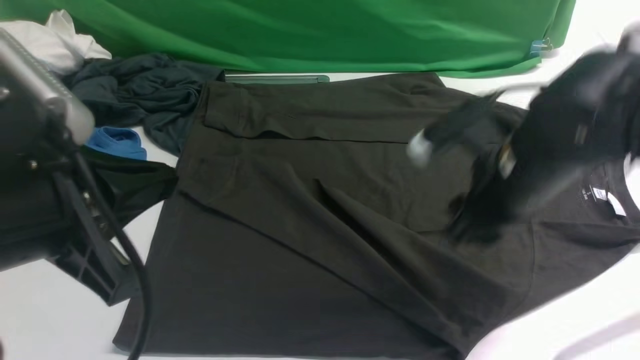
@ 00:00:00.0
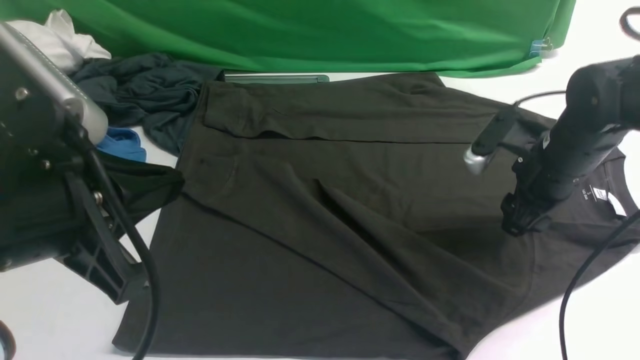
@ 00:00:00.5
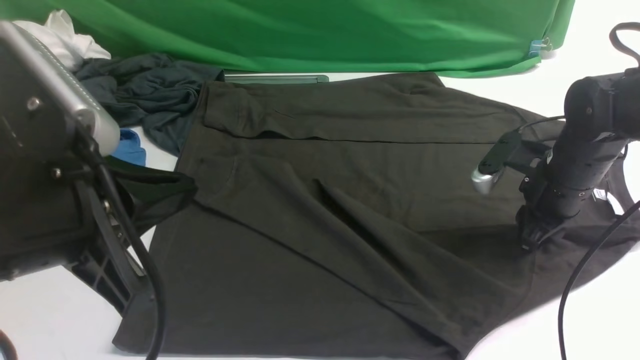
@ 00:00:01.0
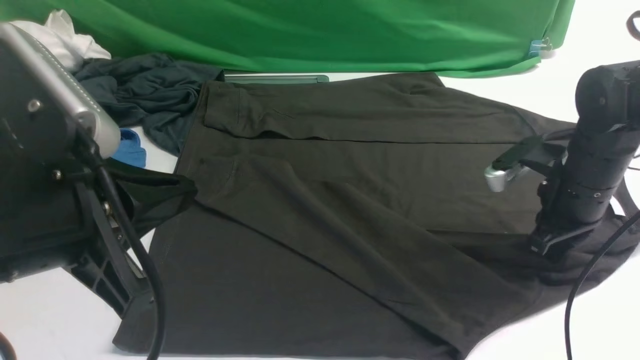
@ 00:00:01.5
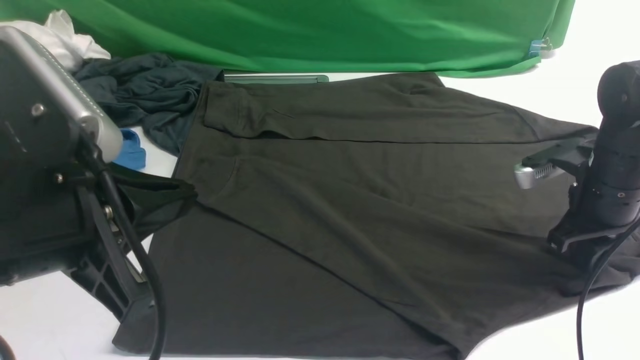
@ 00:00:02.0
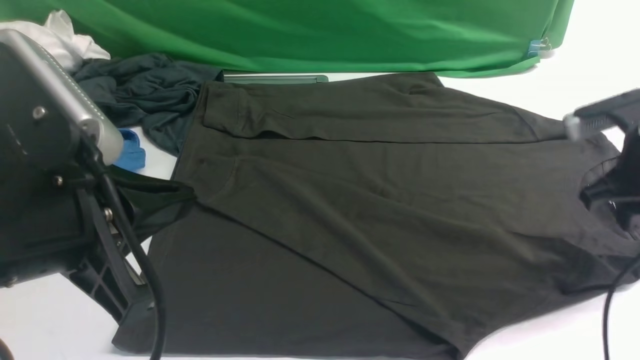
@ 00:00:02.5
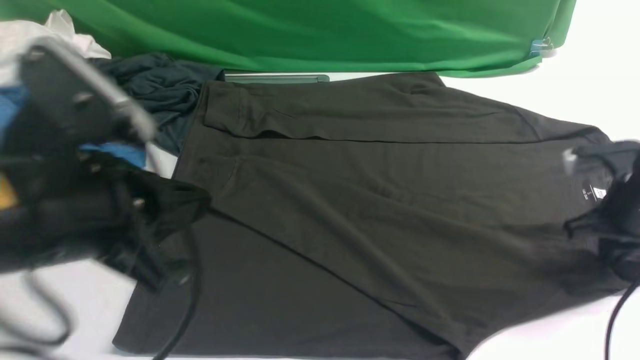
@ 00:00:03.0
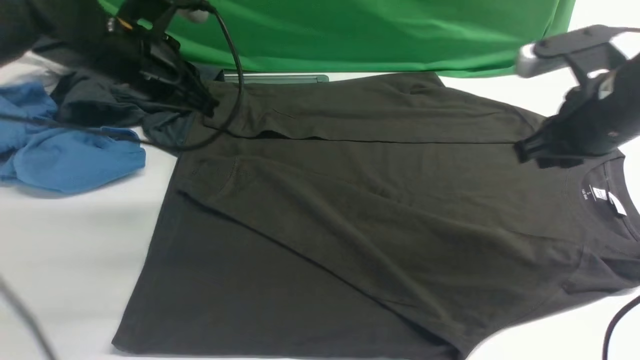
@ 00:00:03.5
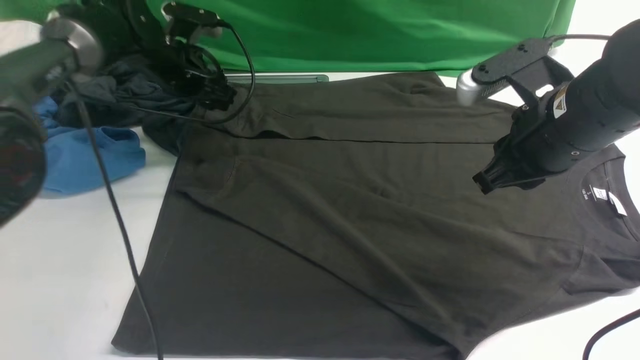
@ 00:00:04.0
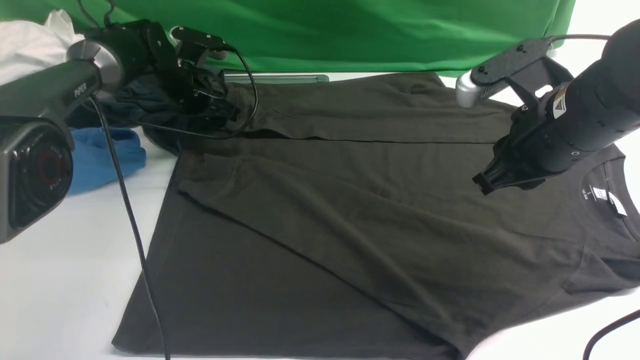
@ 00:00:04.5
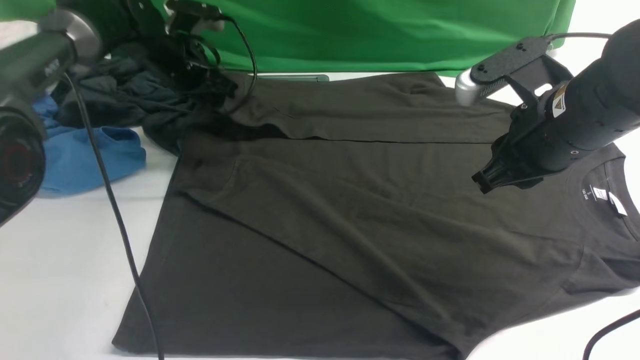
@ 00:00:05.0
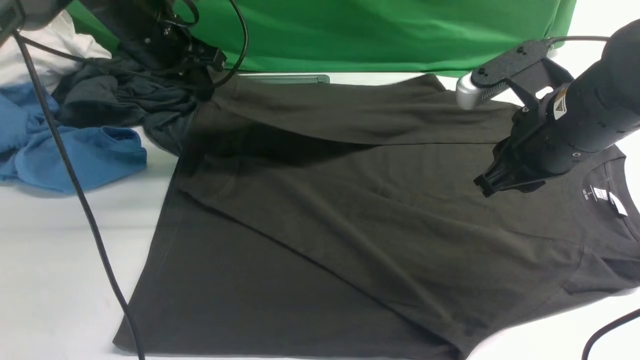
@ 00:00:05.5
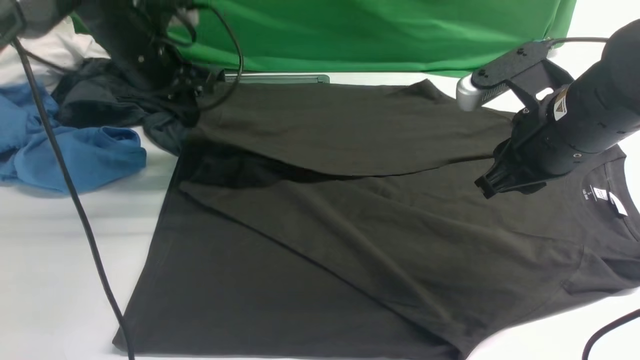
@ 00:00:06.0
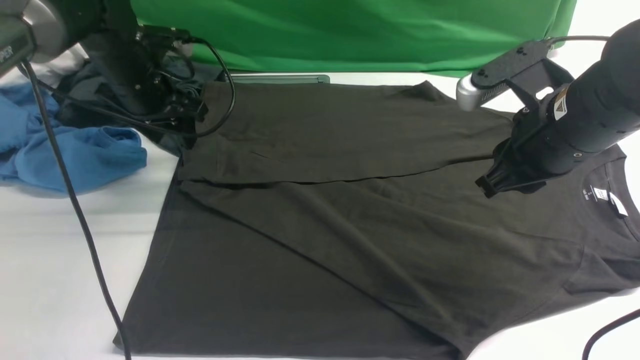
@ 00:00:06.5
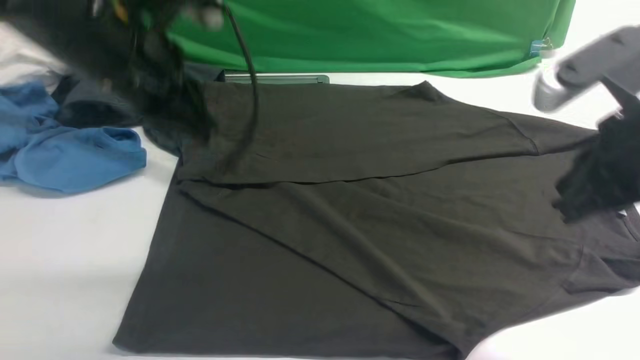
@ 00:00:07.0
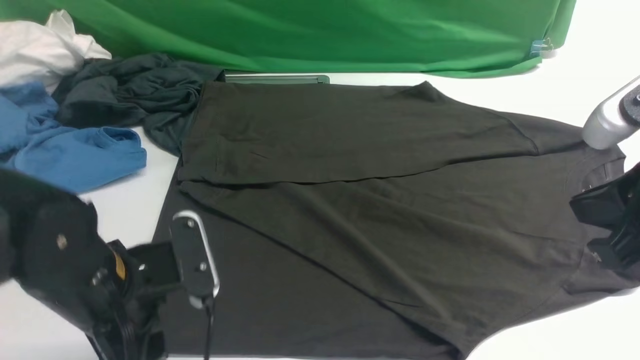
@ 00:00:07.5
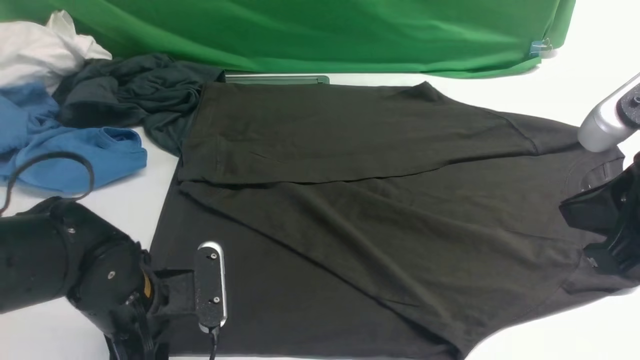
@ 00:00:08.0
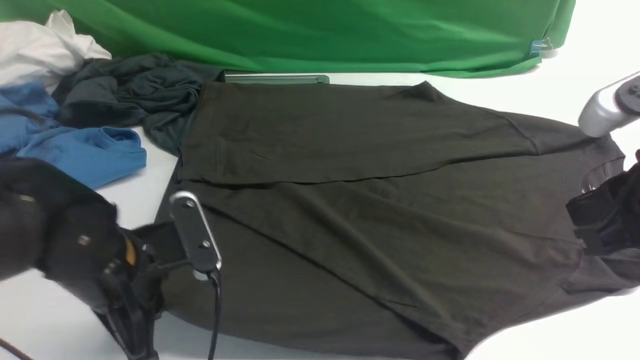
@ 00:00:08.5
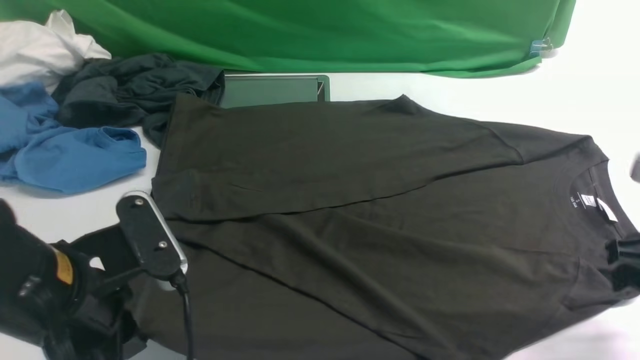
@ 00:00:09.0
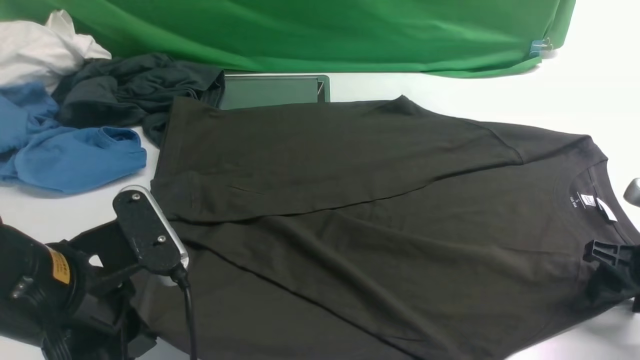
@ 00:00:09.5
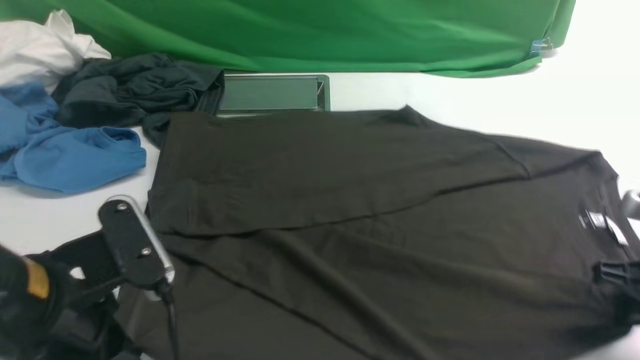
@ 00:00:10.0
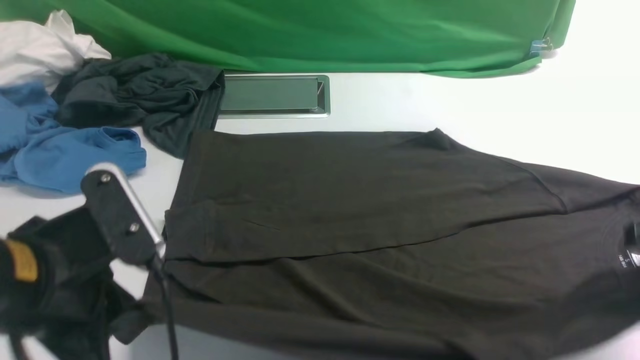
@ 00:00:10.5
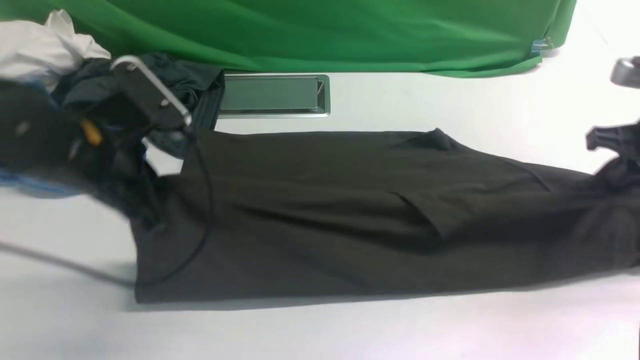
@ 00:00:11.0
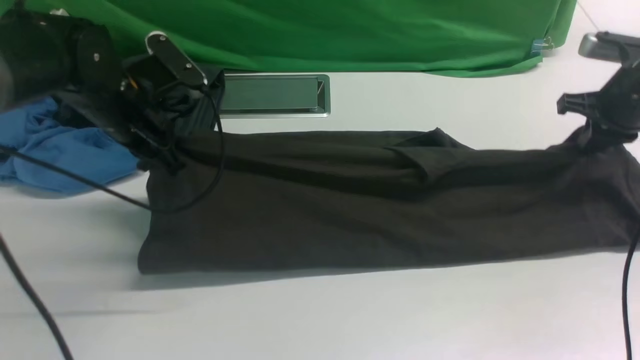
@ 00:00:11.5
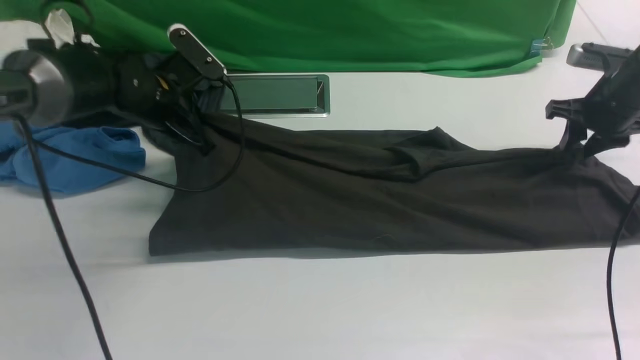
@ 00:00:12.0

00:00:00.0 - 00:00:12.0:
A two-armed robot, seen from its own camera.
Step, 00:00:00.0 - 00:00:05.0: use the left arm to clamp the cuff farthest from it.
Step, 00:00:05.5 - 00:00:06.5: use the left arm to drag and drop the cuff onto the cuff closest to the left arm.
Step, 00:00:07.0 - 00:00:10.0: use both arms simultaneously to clamp the lower edge of the clothing fabric.
00:00:00.0 - 00:00:02.0: The right gripper is displaced to the right and downward by some 15 cm, and closes.
00:00:02.0 - 00:00:04.0: The right gripper moves upward and to the left, about 15 cm; the left gripper is displaced forward and downward by approximately 40 cm, and opens up.
00:00:04.0 - 00:00:06.0: The left gripper is displaced upward and backward by about 10 cm, and closes.
00:00:06.0 - 00:00:08.0: The right gripper travels backward and upward by approximately 15 cm; the left gripper travels backward and downward by approximately 25 cm, and opens up.
00:00:08.0 - 00:00:10.0: The left gripper moves upward and backward, about 15 cm, and closes its fingers. The right gripper goes roughly 20 cm downward and to the right, and opens, then closes once more.
00:00:10.0 - 00:00:12.0: The grippers both shift forward by approximately 25 cm. The right gripper opens.

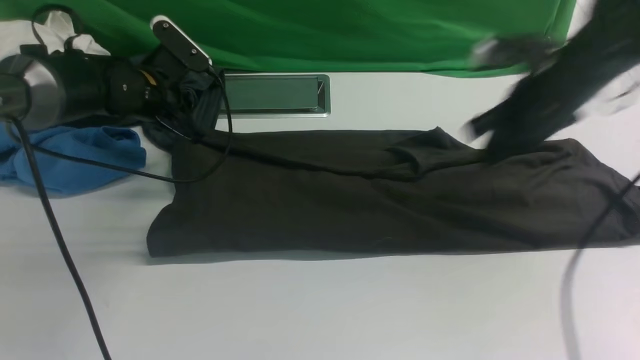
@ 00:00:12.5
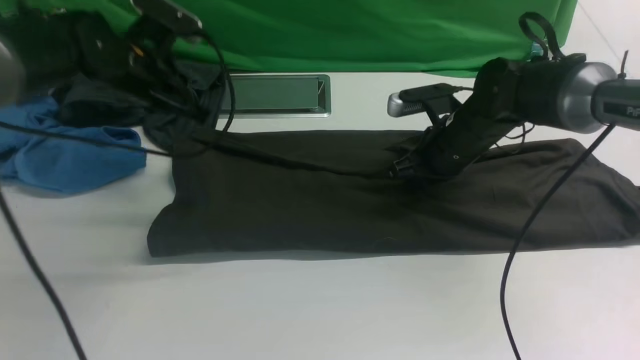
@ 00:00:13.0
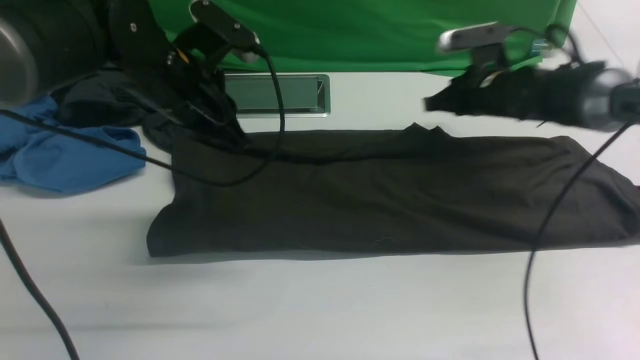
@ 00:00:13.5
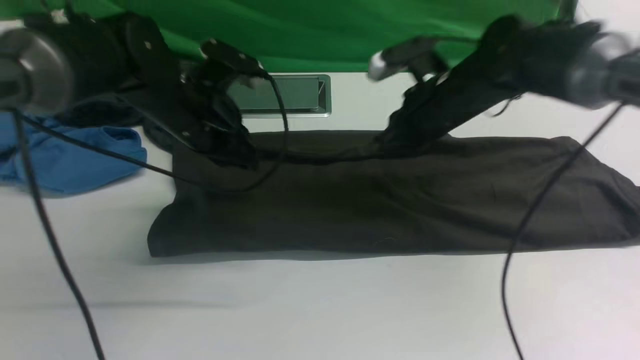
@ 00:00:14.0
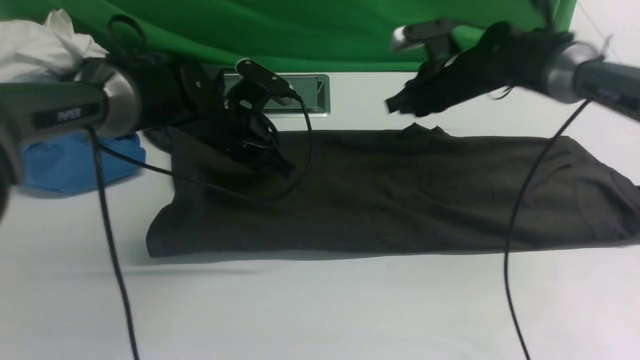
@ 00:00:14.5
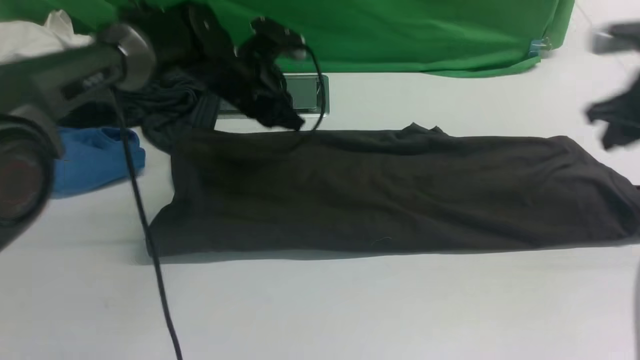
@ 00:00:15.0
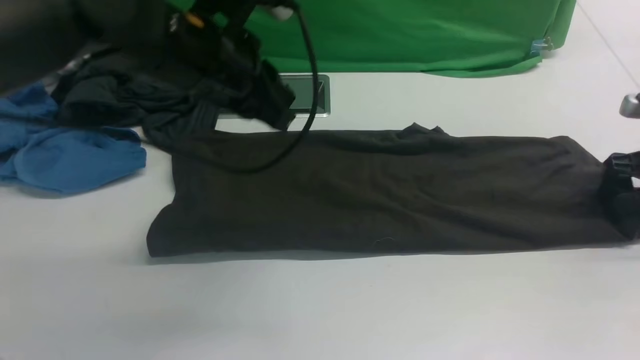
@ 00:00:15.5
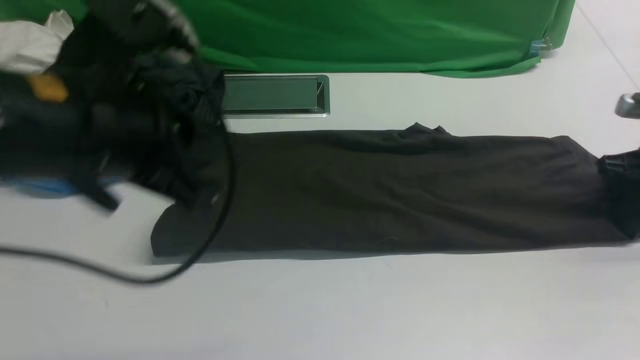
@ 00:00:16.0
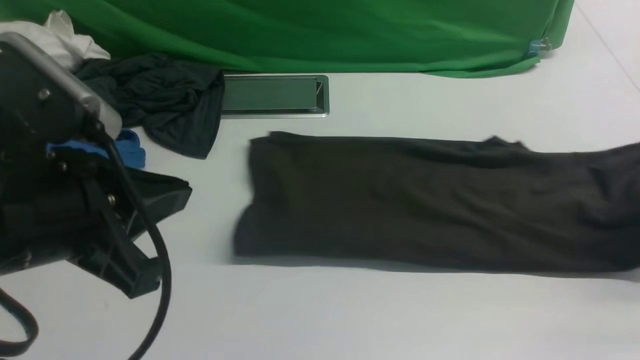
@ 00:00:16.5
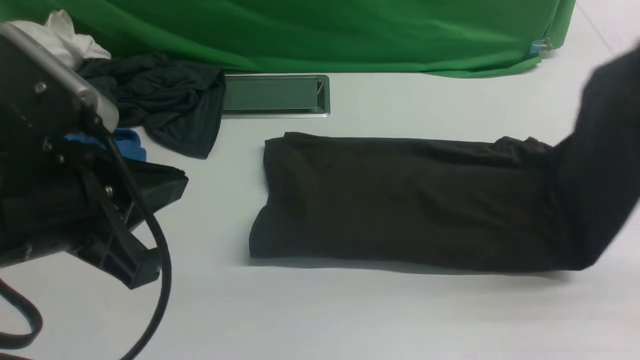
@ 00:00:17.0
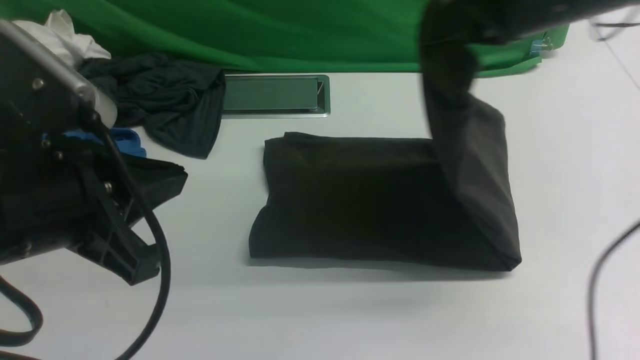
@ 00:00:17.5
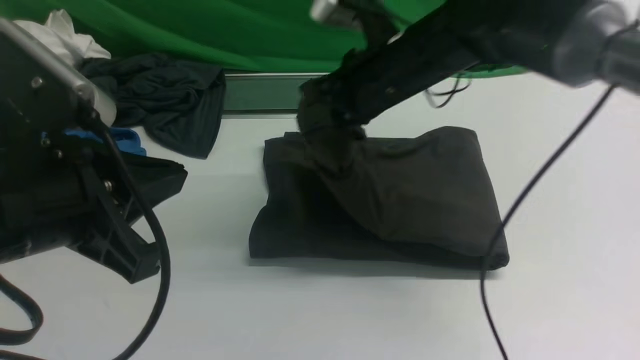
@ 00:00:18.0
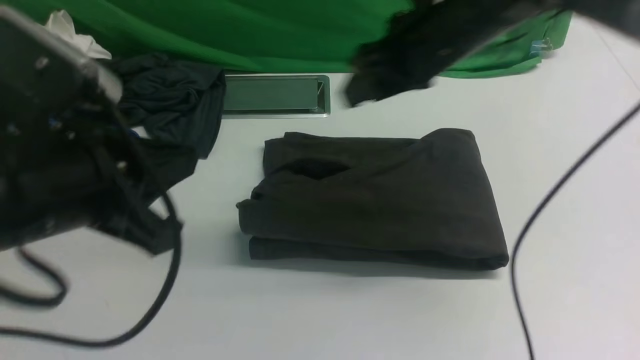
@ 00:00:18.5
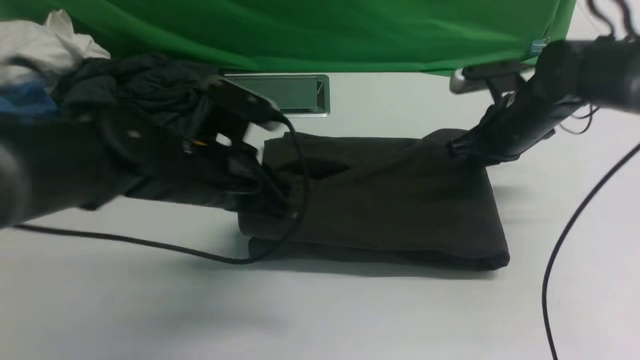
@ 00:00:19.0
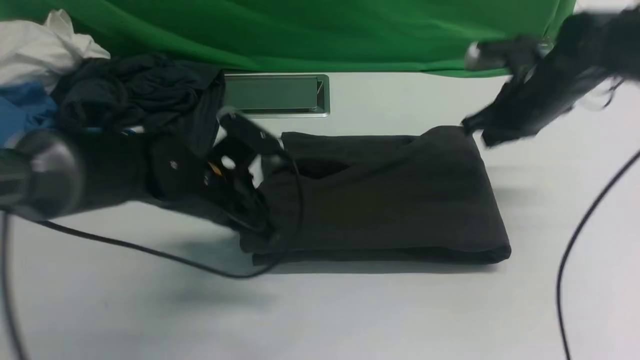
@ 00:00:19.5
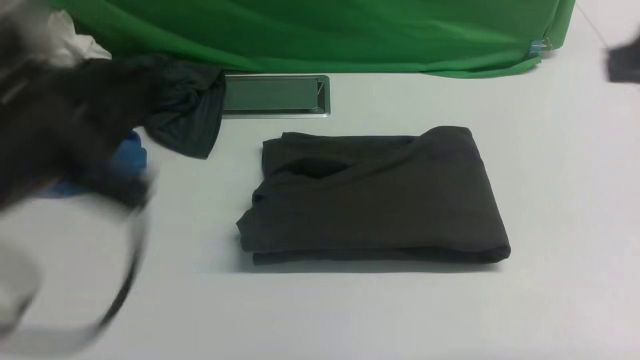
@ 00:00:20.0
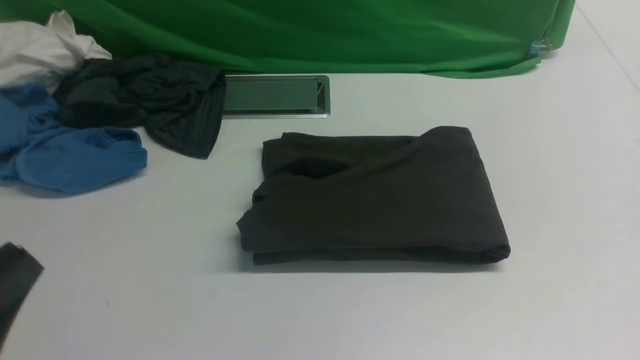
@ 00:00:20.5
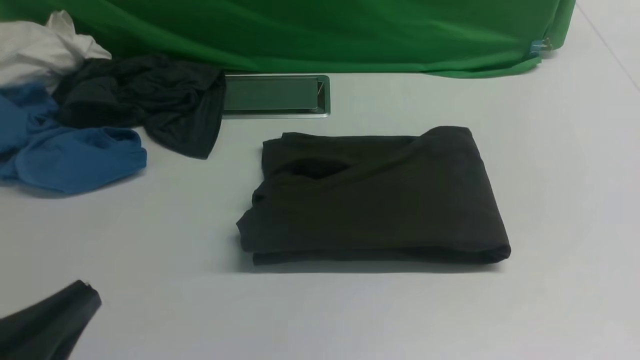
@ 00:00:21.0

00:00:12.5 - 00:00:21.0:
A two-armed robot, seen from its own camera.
Step, 00:00:12.5 - 00:00:14.5: use both arms to drag the lower edge of the fabric forward and fold it over the upper edge.
Step, 00:00:15.0 - 00:00:16.0: use the right arm to clamp the right edge of the fabric.
Step, 00:00:16.5 - 00:00:18.0: use the right arm to drag the right edge of the fabric to the left and folds it over the left edge.
00:00:12.5 - 00:00:14.5: The left gripper heads to the right, covering some 10 cm, and goes upward and returns, roughly 10 cm each way; the right gripper travels forward by approximately 10 cm.
00:00:14.5 - 00:00:16.5: The right gripper moves to the right and backward, some 30 cm, and opens and closes again. Meanwhile the left gripper is displaced backward and upward by roughly 35 cm.
00:00:16.5 - 00:00:19.0: The right gripper goes about 25 cm to the left and forward, and opens, then closes once more. Meanwhile the left gripper shifts some 20 cm forward and downward.
00:00:19.0 - 00:00:21.0: Both grippers travel together backward, about 30 cm.
